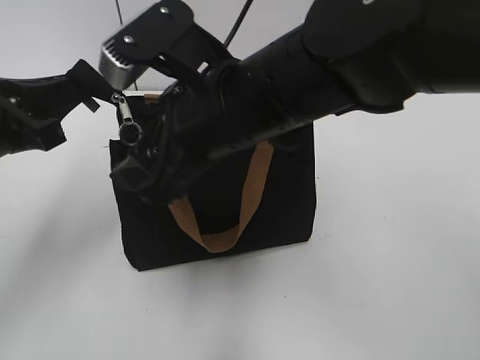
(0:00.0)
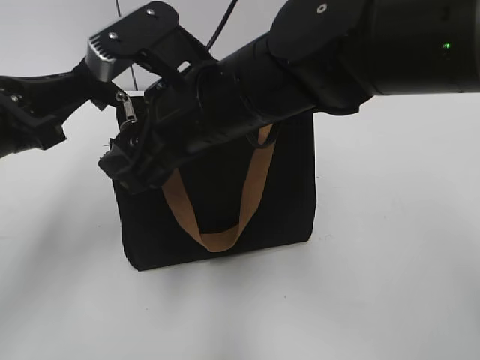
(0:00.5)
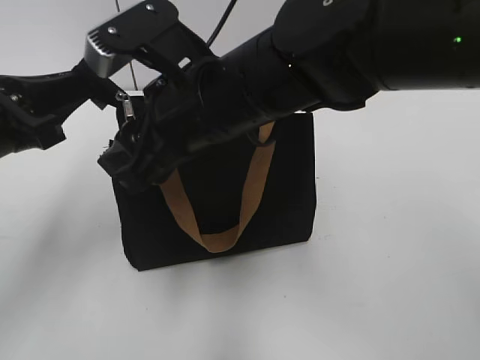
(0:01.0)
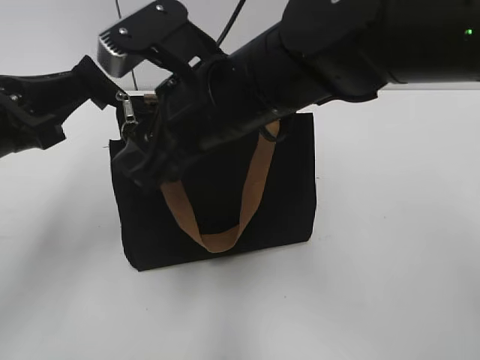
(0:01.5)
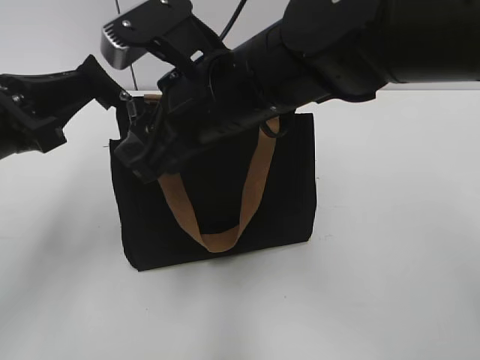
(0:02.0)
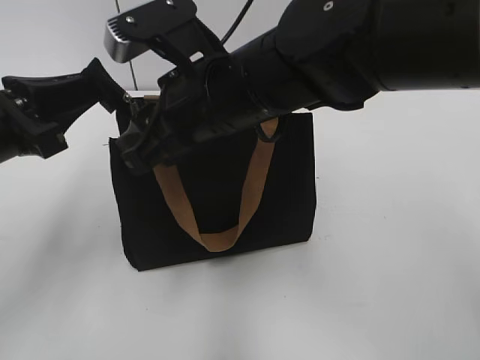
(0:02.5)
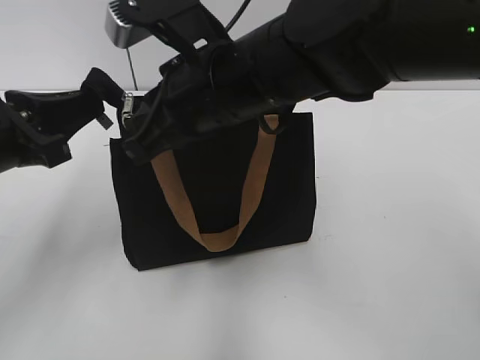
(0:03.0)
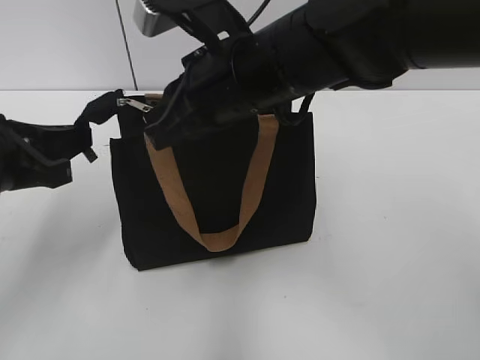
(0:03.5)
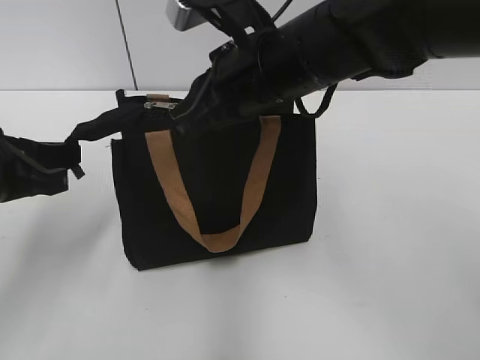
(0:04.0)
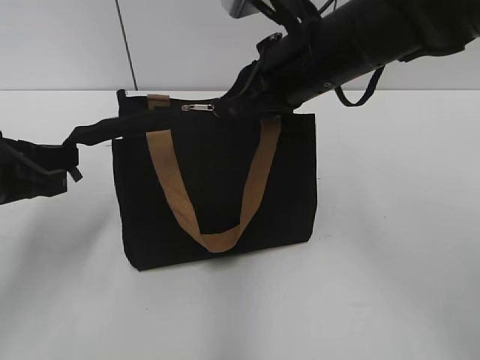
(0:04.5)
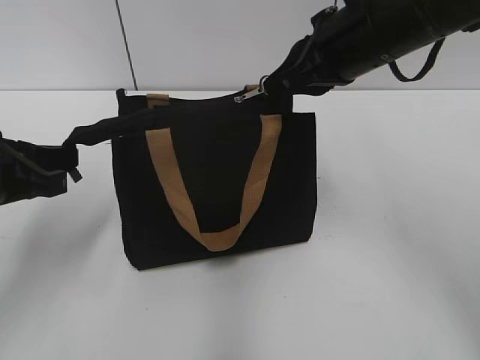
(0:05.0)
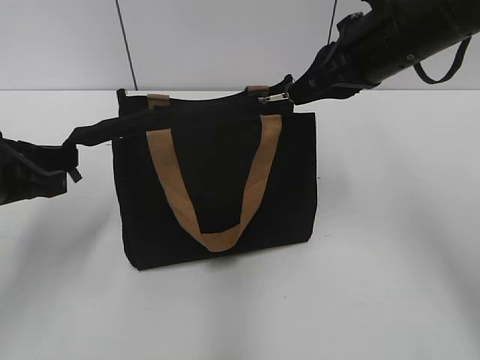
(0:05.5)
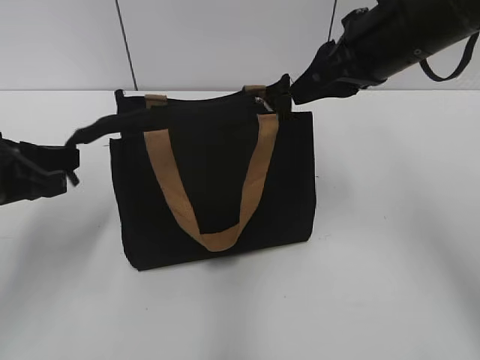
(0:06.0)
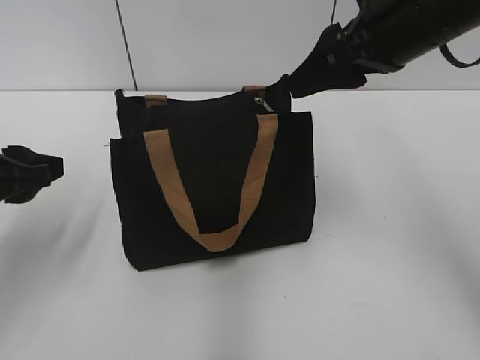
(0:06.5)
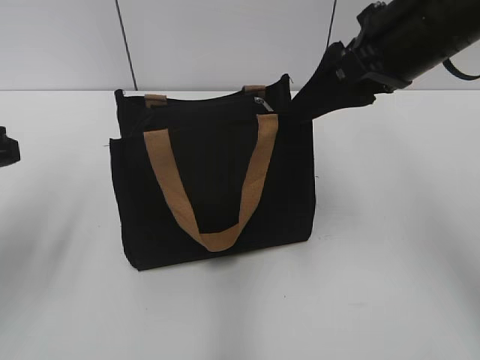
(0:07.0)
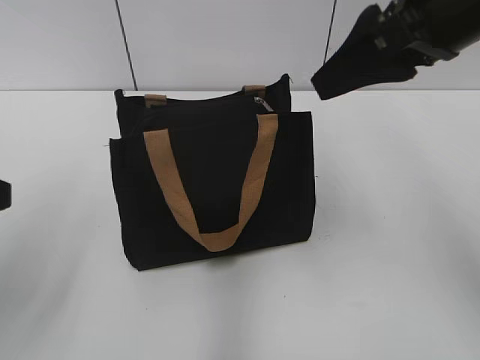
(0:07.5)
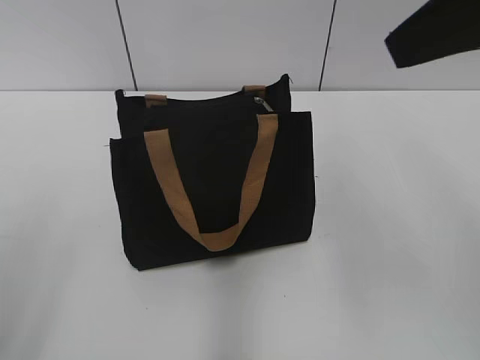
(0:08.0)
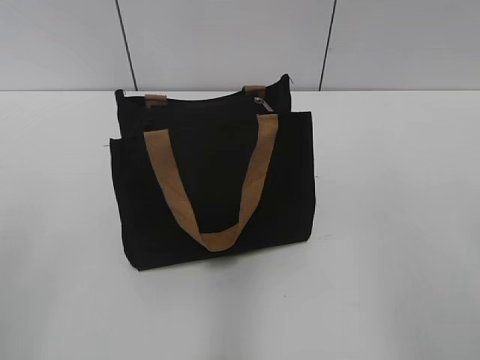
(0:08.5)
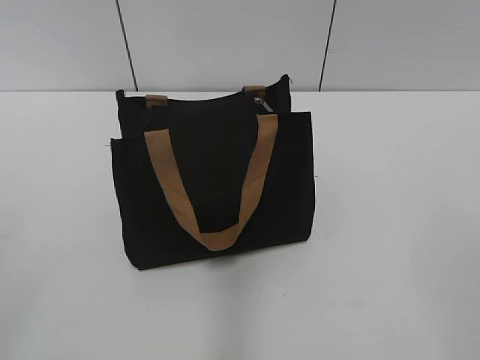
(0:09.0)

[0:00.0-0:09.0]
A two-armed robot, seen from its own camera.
Step, 0:00.0 to 0:05.5: Zip up the bag with your right hand.
0:00.0 to 0:02.0: There are only small adjustments of the grippers.
0:02.0 to 0:04.5: The right gripper travels to the right and forward by some 10 cm, and closes.
0:04.5 to 0:07.0: The right gripper travels to the right by roughly 5 cm, and opens. The left gripper changes place by roughly 5 cm, and opens.
0:07.0 to 0:09.0: The right gripper is displaced backward by roughly 30 cm. The left gripper heads backward, covering some 20 cm.

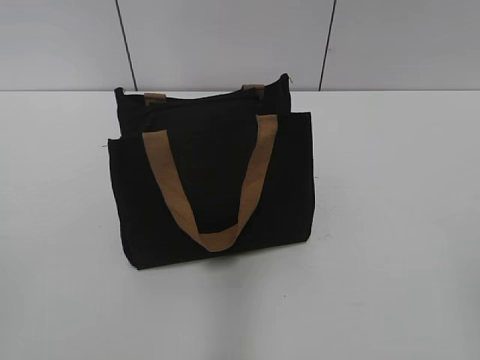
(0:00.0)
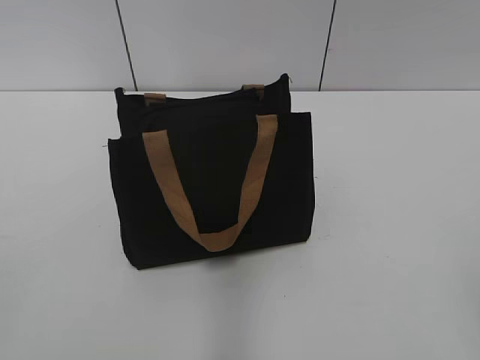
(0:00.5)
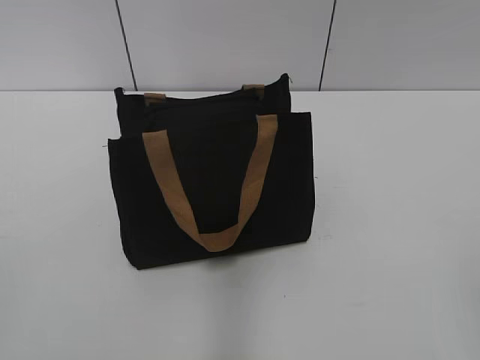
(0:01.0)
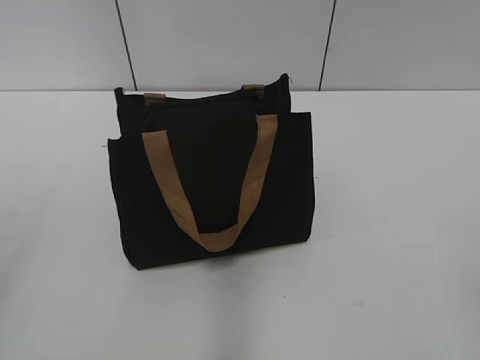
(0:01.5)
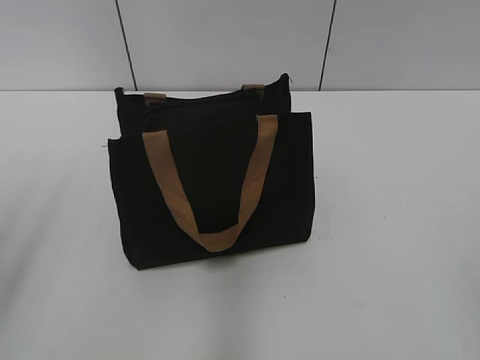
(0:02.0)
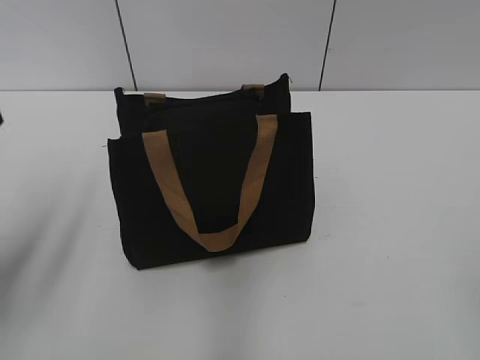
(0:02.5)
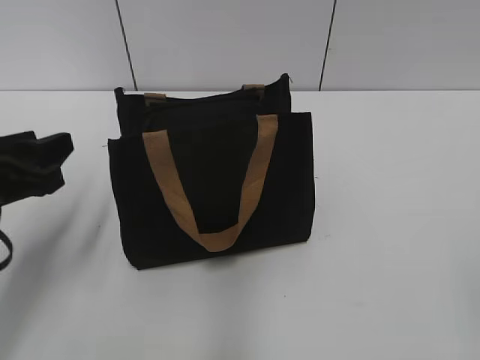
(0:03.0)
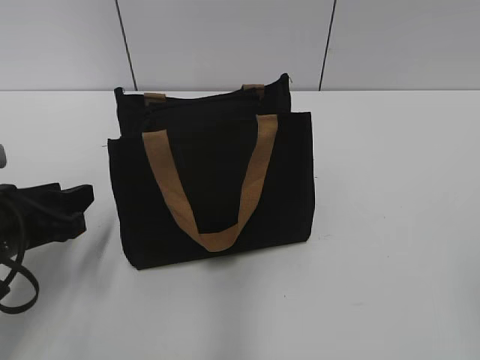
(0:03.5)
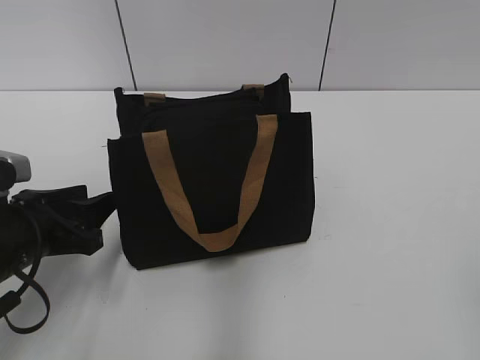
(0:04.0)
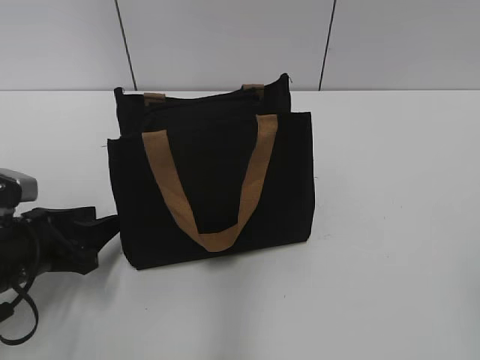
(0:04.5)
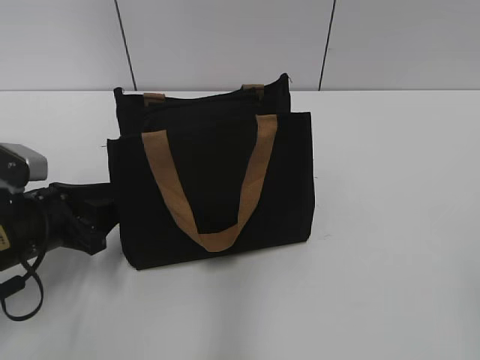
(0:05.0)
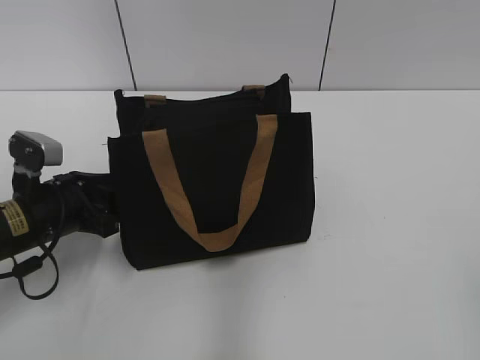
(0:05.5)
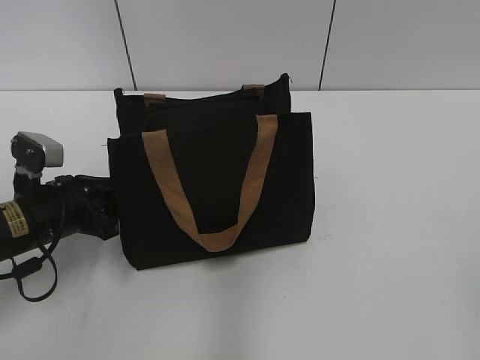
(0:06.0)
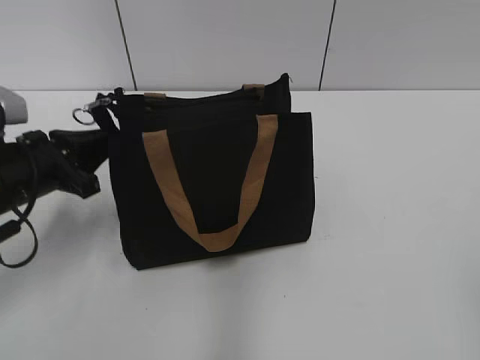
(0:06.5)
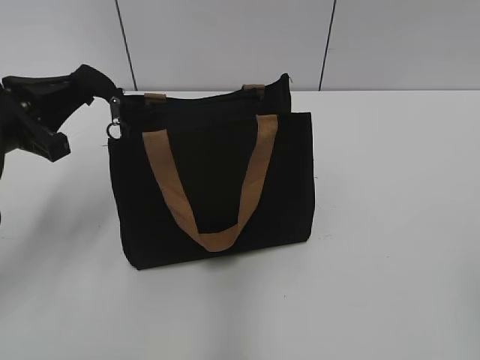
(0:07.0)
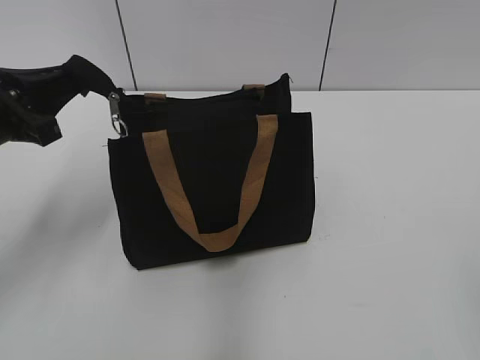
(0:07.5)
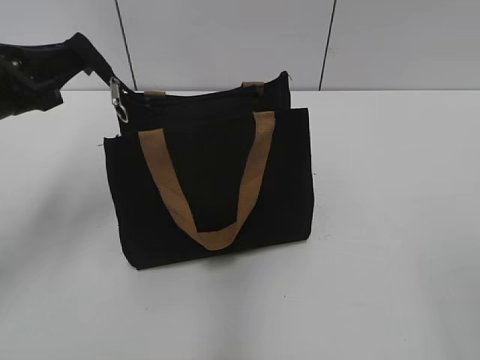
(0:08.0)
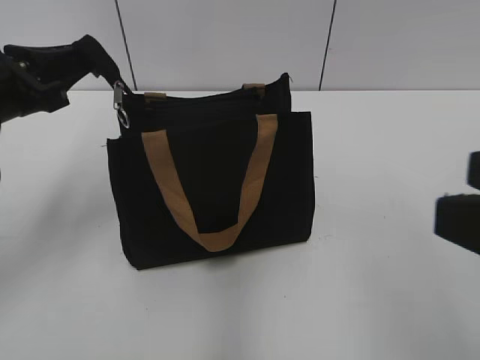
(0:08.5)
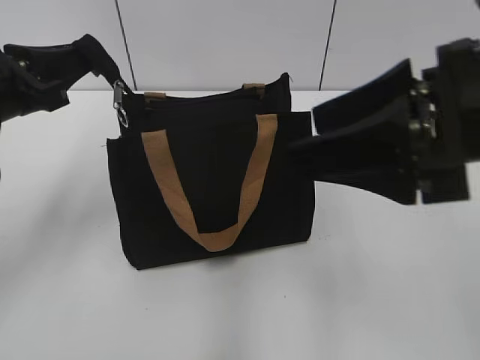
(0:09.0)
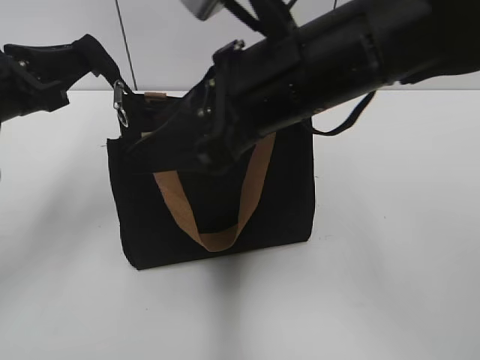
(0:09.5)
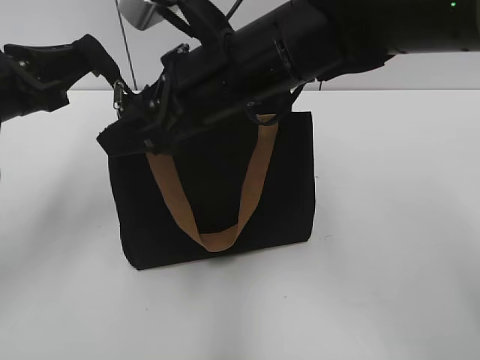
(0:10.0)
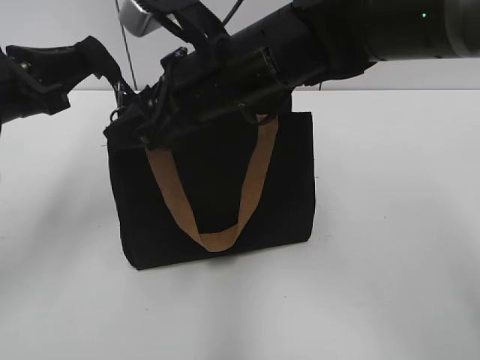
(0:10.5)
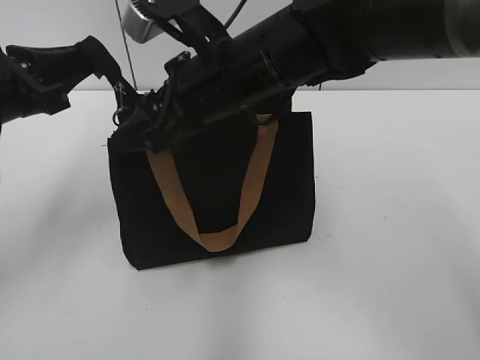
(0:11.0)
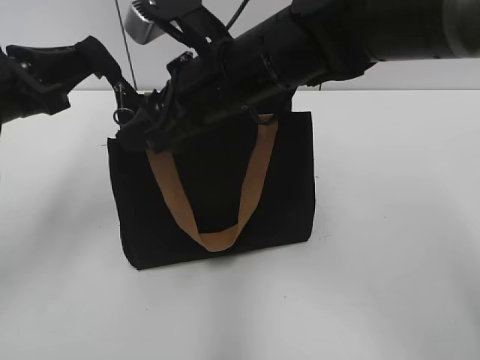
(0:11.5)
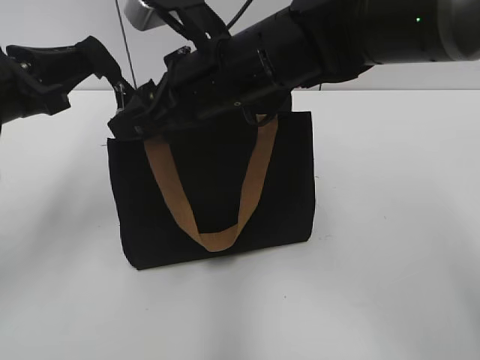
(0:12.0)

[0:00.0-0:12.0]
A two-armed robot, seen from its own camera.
0:02.0 to 0:04.0: The left gripper goes some 20 cm downward, forward and to the right.
0:04.0 to 0:06.0: The left gripper moves forward, approximately 5 cm, and closes its fingers.
0:06.0 to 0:08.0: The left gripper shifts about 15 cm upward, and closes up.
0:08.0 to 0:10.0: The right gripper goes approximately 40 cm forward and to the left.
0:10.0 to 0:12.0: The grippers move only a little.

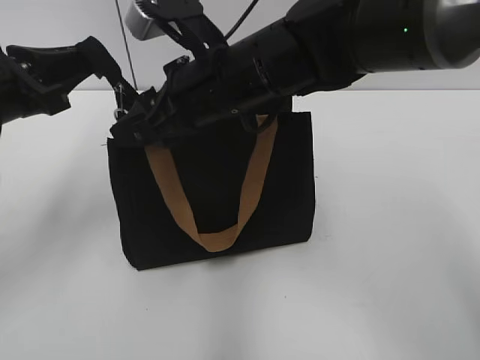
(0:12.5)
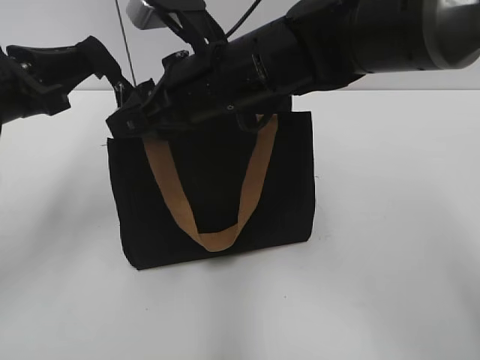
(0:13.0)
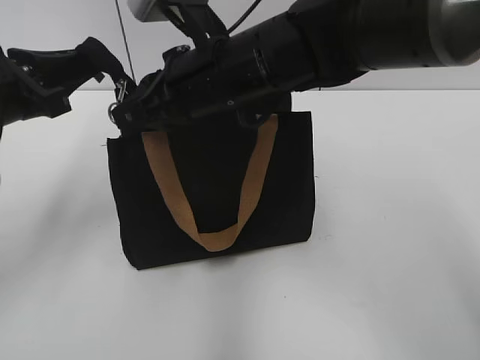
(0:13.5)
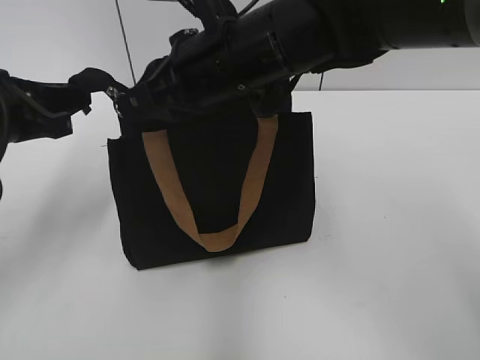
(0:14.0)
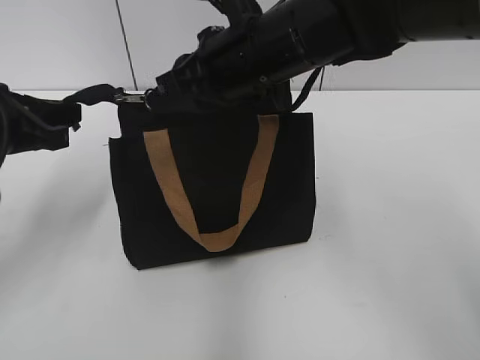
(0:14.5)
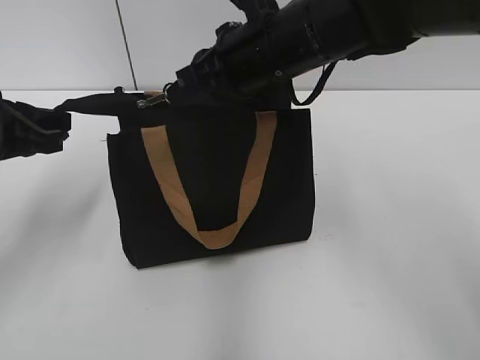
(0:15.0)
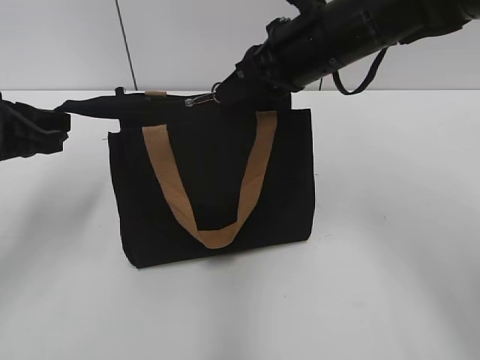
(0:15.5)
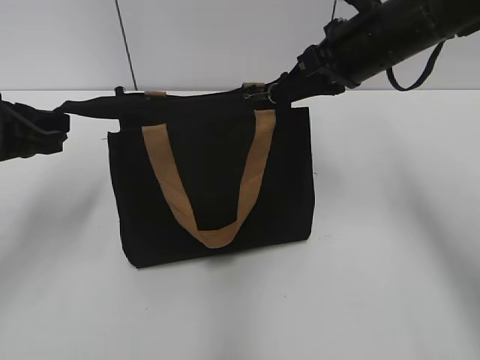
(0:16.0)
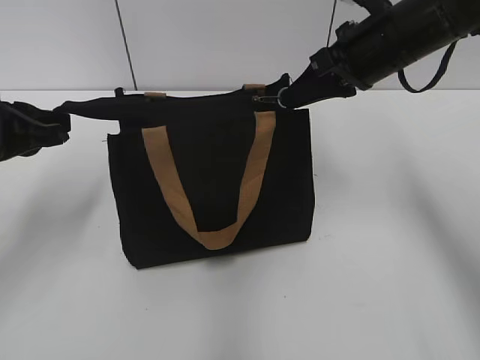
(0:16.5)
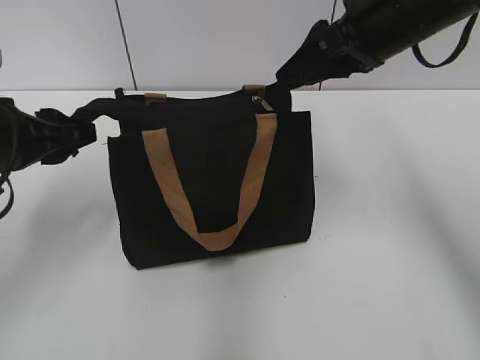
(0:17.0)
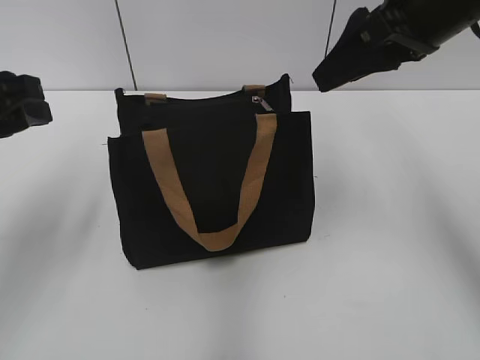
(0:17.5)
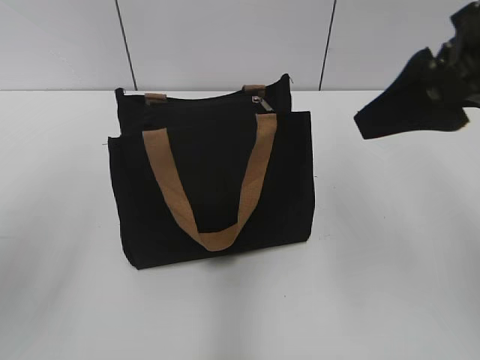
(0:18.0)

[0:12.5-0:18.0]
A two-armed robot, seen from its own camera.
Step, 0:12.5 to 0:16.5: Zip up the bag with your right hand.
0:12.5 to 0:14.5: The right gripper closes its fingers.
0:14.5 to 0:16.0: The right gripper is displaced to the right by about 10 cm.
0:16.0 to 0:18.0: The right gripper goes some 15 cm backward and upward, and opens up; the left gripper is displaced upward and backward by roughly 15 cm, and opens up.
